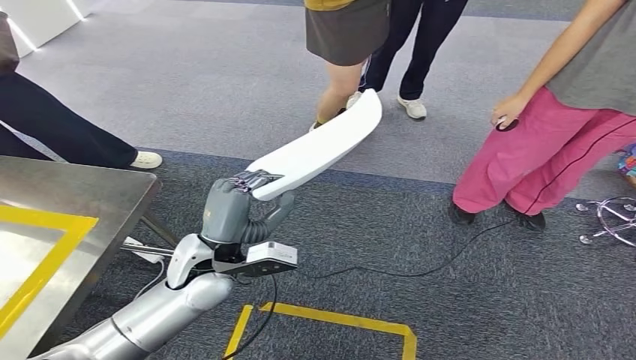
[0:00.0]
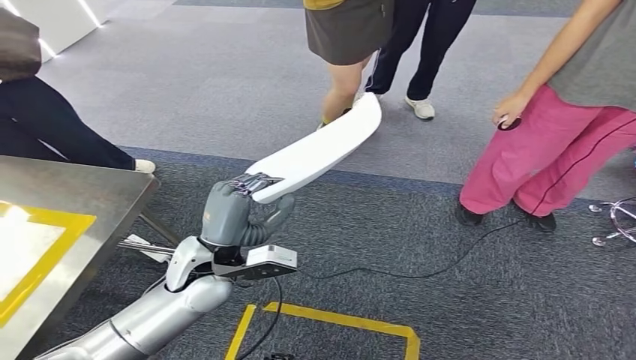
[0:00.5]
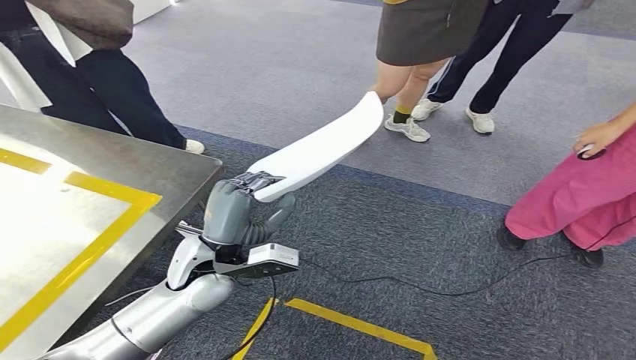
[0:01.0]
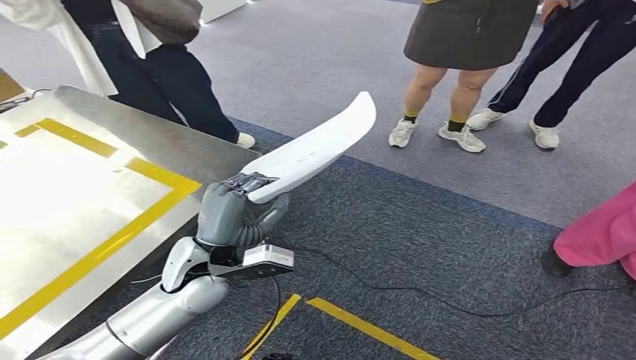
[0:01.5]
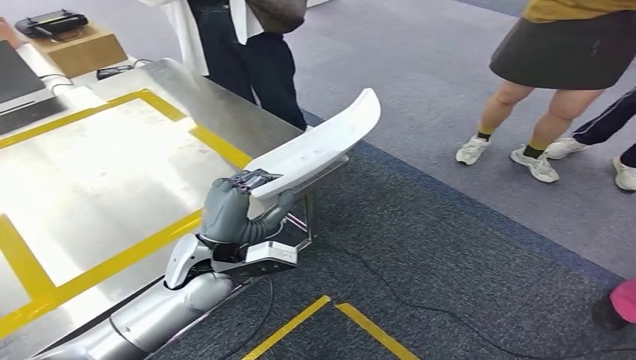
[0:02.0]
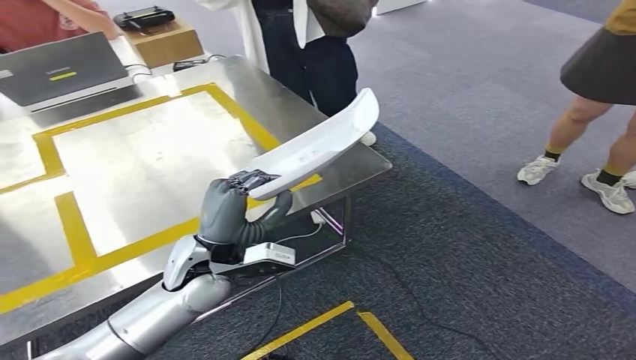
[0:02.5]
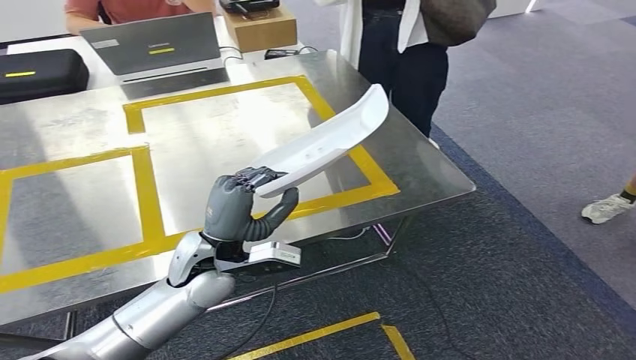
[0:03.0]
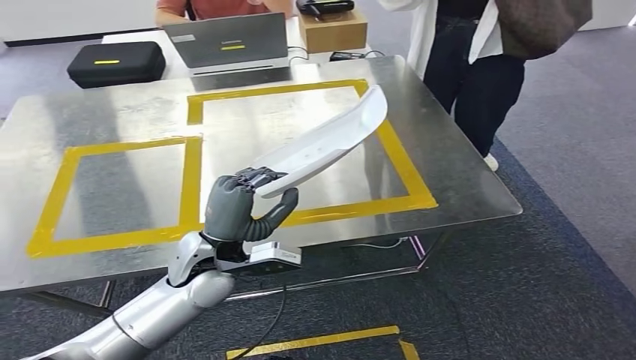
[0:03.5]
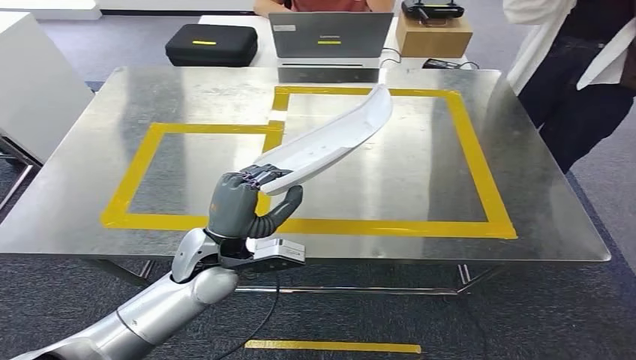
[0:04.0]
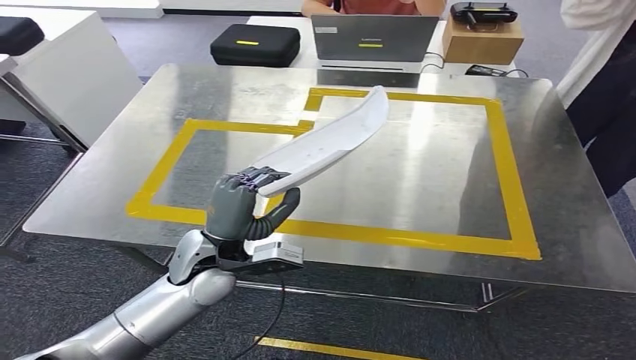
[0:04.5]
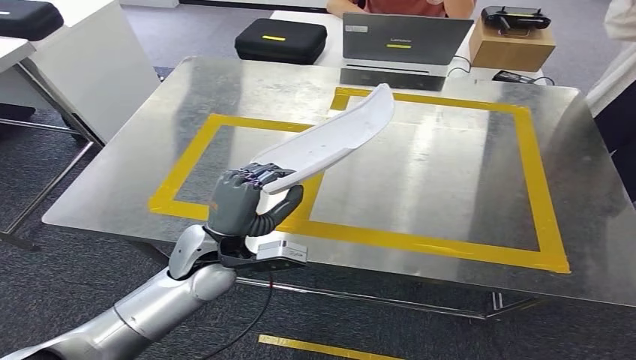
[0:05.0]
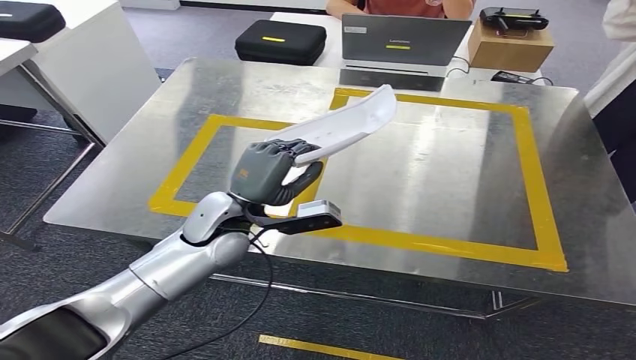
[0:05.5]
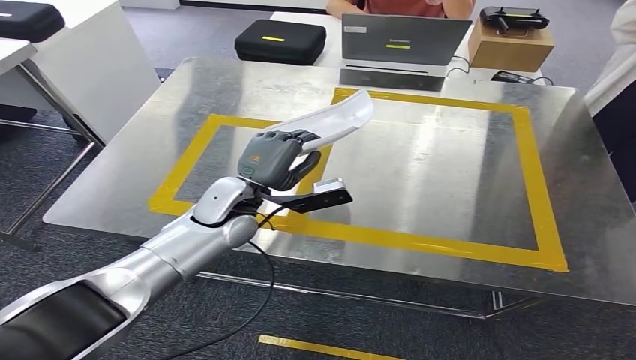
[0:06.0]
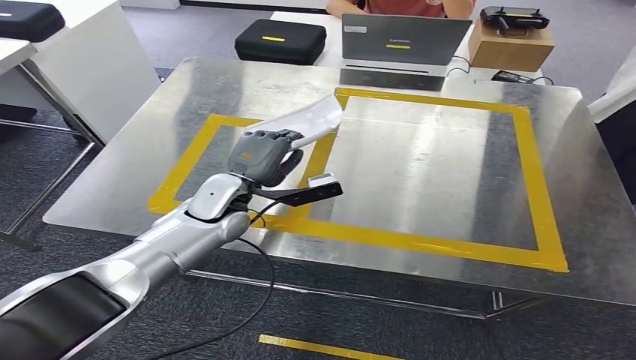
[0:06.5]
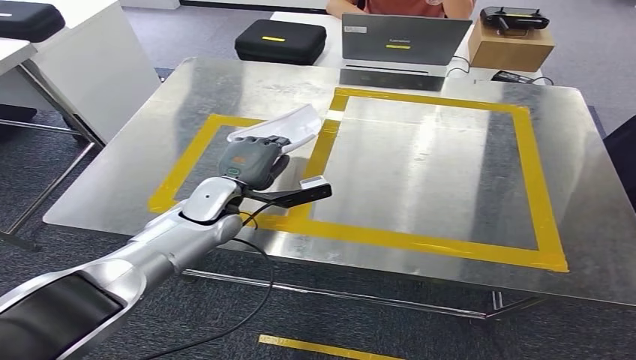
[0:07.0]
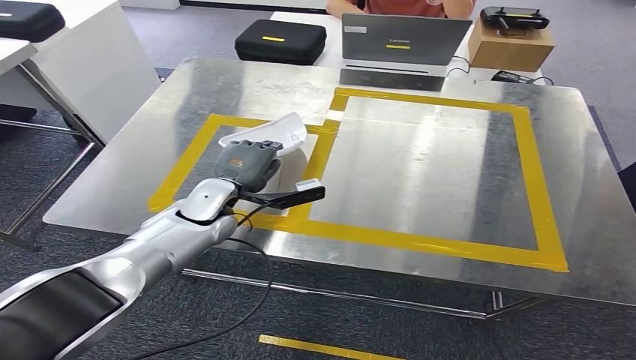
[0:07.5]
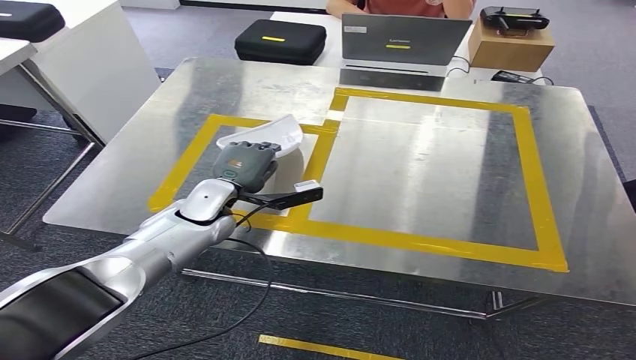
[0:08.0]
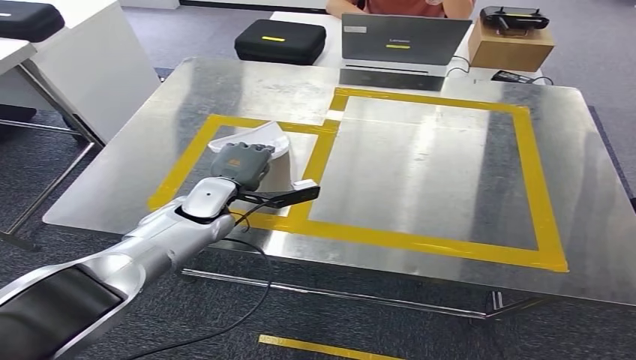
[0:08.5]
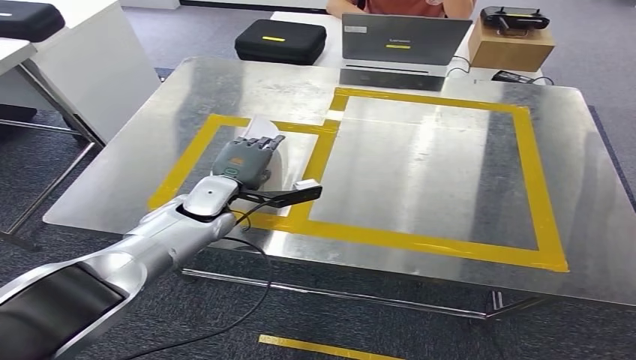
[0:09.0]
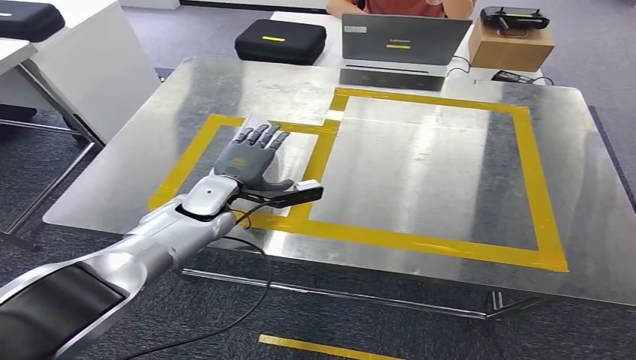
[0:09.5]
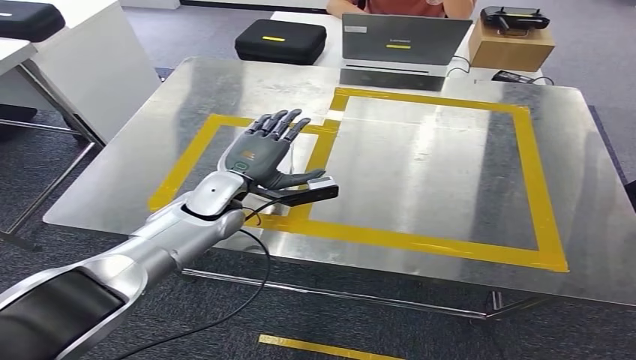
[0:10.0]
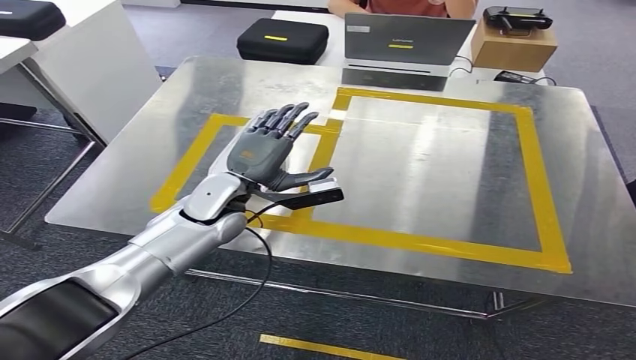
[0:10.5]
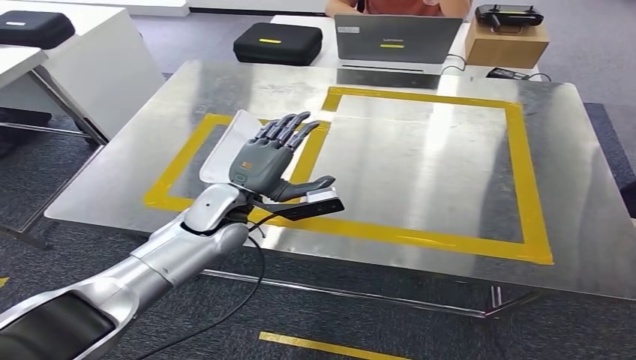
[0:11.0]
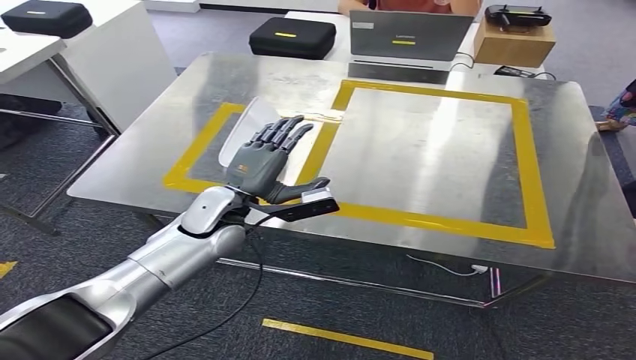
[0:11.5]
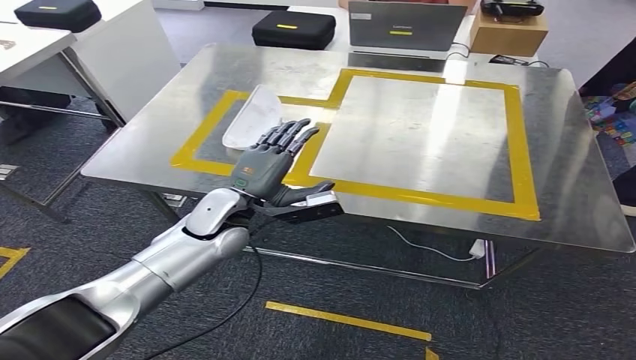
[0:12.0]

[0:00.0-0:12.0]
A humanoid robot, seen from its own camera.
Step, 0:00.0 to 0:10.0: Insert the small component into the corresponding slot on the workbench.
0:06.0 to 0:08.0: The left hand moves approximately 5 cm.
0:08.0 to 0:10.0: There are only small adjustments of the hands.

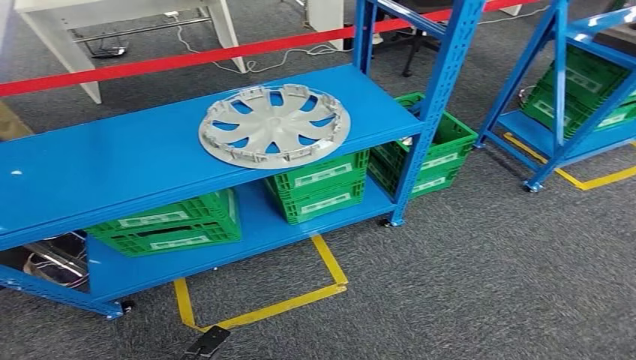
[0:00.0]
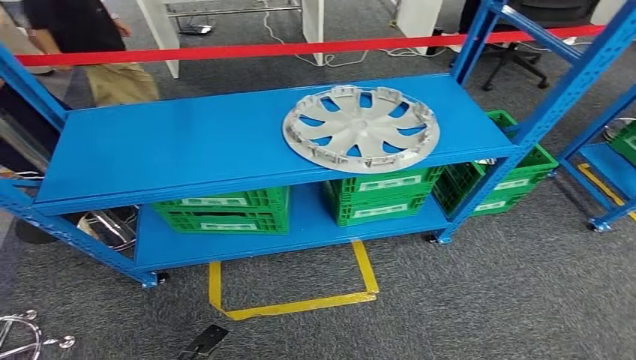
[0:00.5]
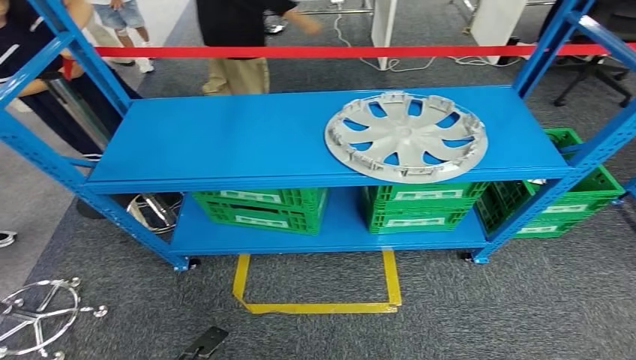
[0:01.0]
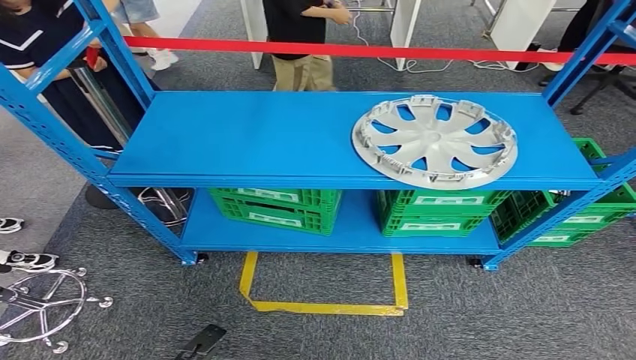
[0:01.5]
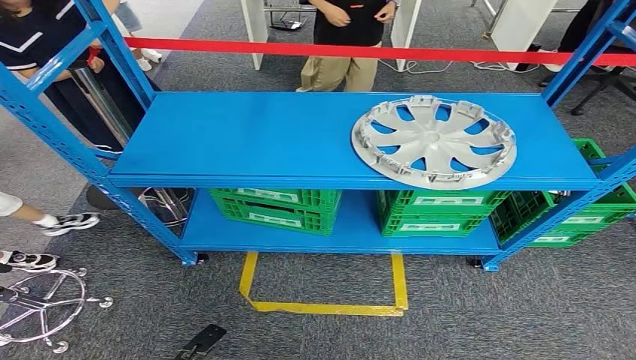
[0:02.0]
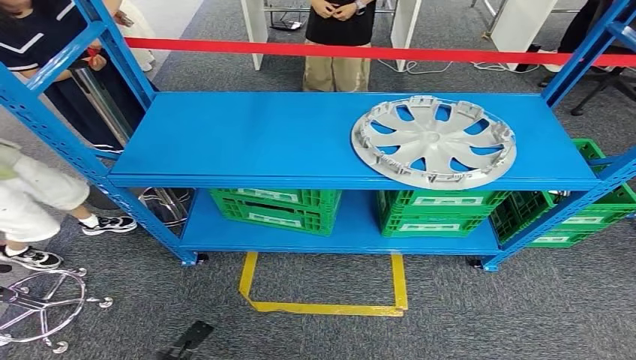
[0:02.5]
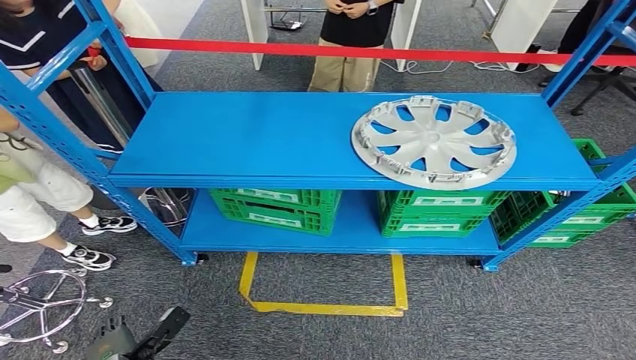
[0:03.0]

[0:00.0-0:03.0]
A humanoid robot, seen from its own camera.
Step, 0:00.0 to 0:03.0: Move to the initial position at the workbench.
0:01.5 to 0:03.0: The left hand is displaced to the left by approximately 5 cm.
